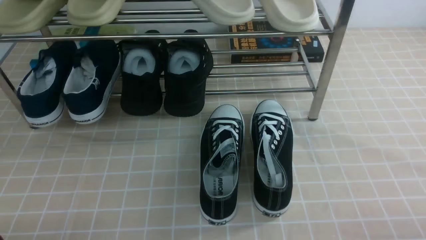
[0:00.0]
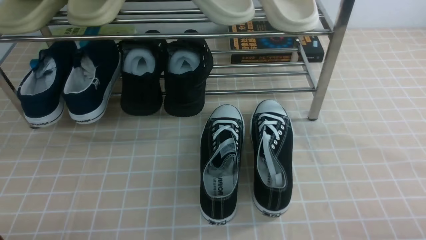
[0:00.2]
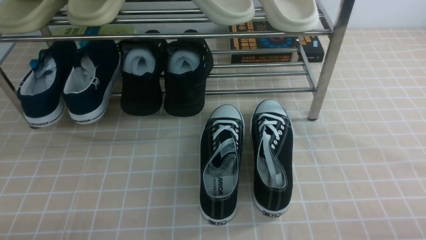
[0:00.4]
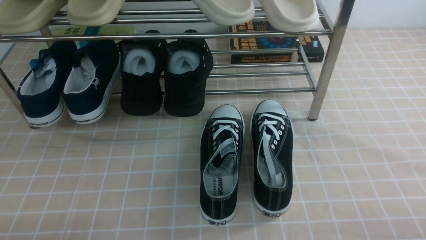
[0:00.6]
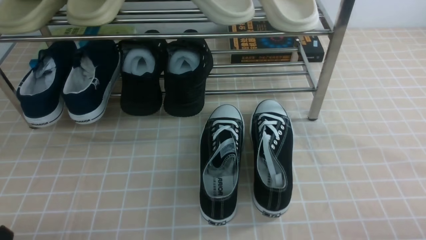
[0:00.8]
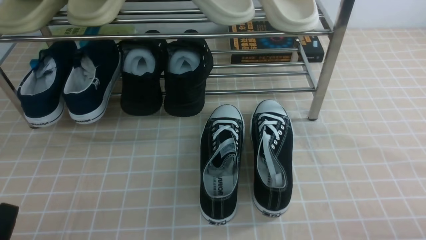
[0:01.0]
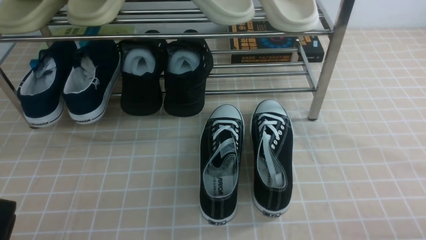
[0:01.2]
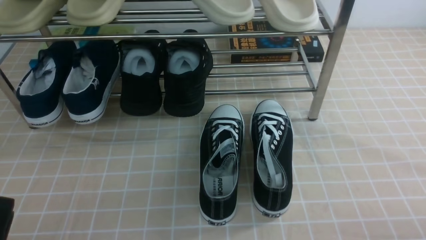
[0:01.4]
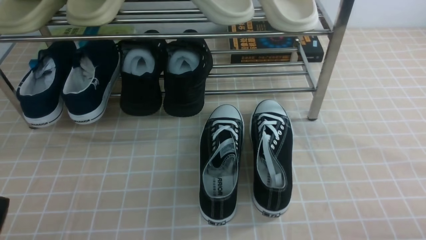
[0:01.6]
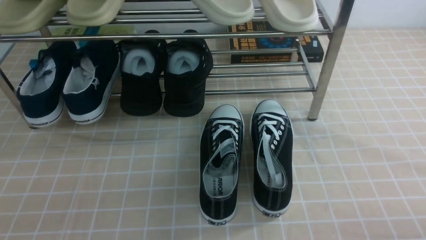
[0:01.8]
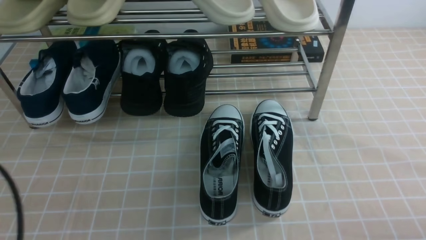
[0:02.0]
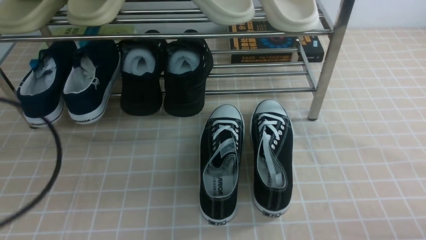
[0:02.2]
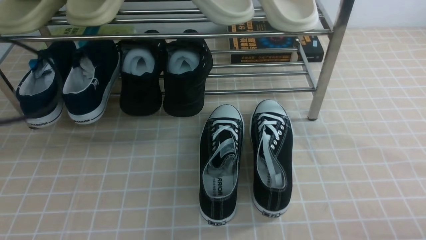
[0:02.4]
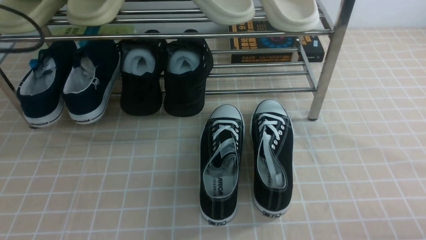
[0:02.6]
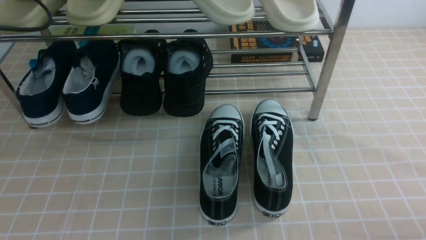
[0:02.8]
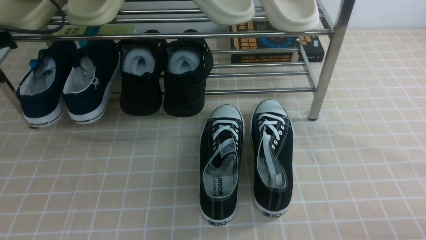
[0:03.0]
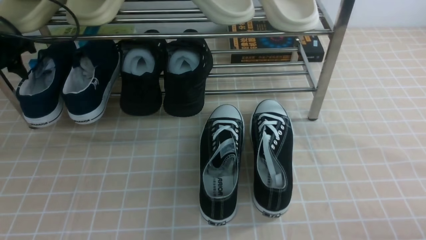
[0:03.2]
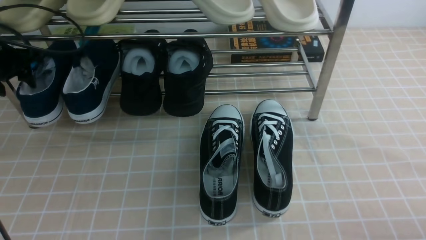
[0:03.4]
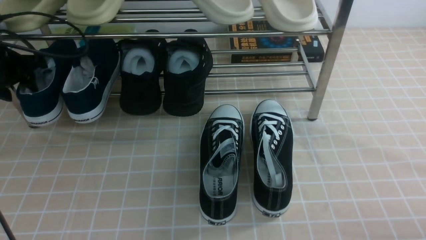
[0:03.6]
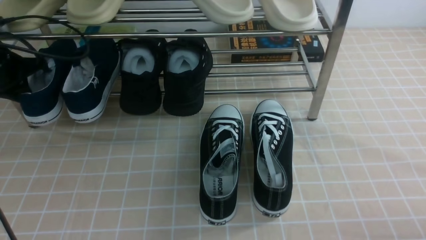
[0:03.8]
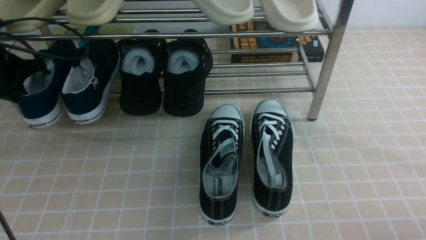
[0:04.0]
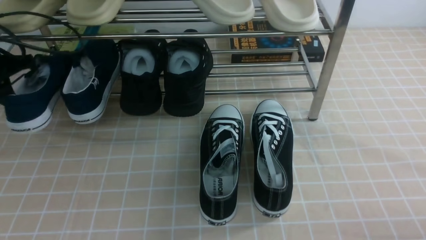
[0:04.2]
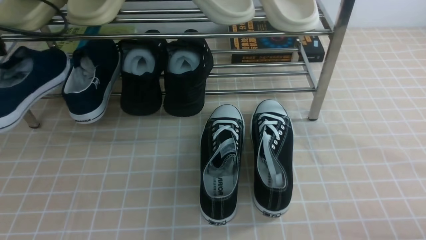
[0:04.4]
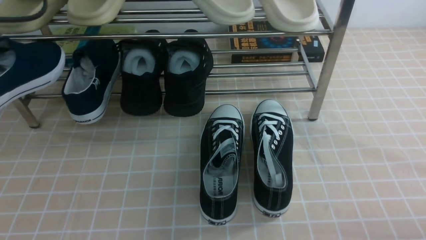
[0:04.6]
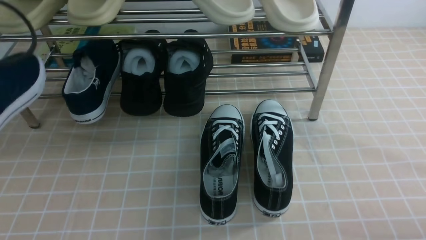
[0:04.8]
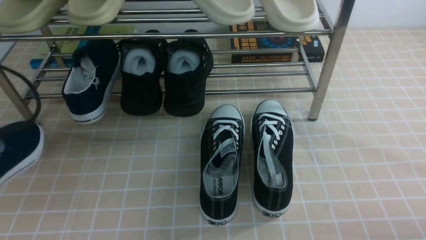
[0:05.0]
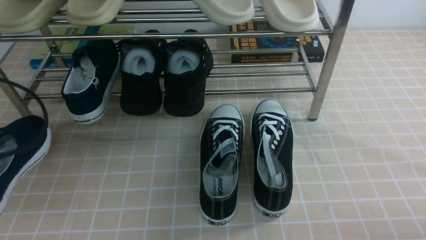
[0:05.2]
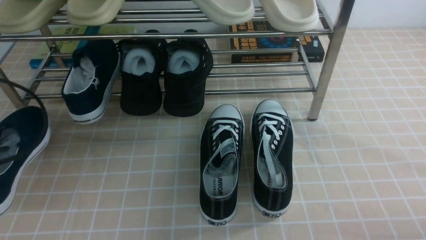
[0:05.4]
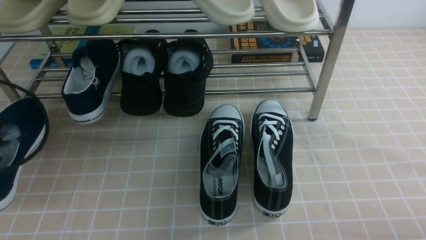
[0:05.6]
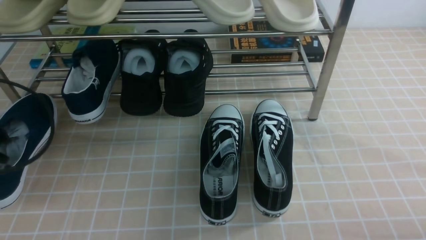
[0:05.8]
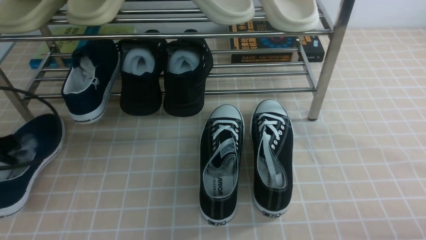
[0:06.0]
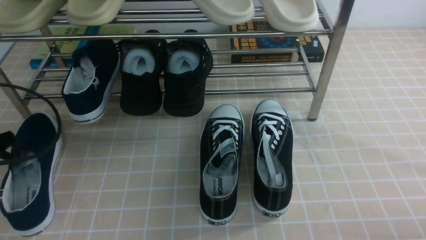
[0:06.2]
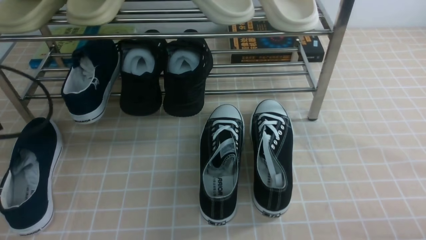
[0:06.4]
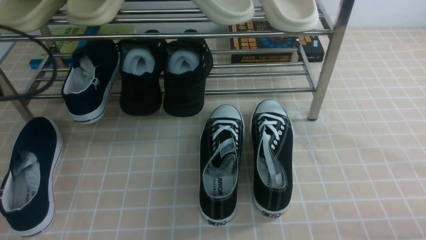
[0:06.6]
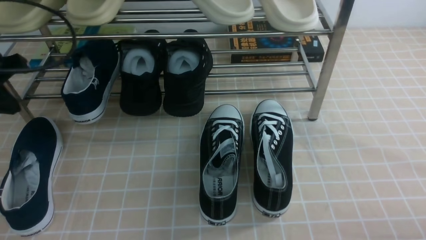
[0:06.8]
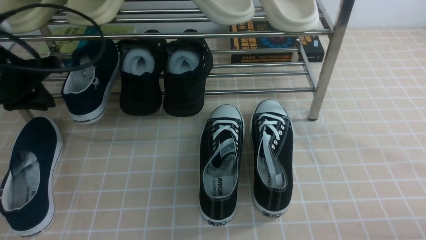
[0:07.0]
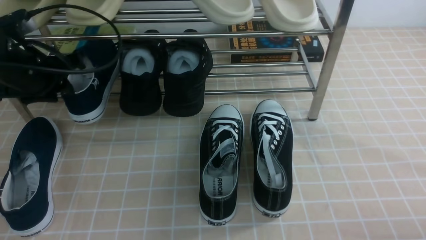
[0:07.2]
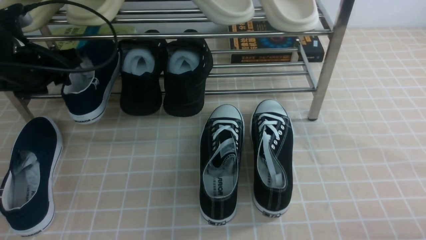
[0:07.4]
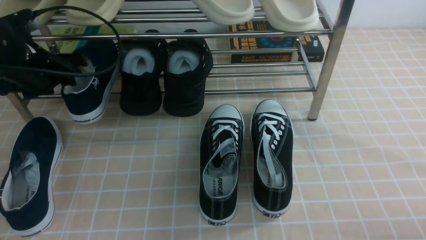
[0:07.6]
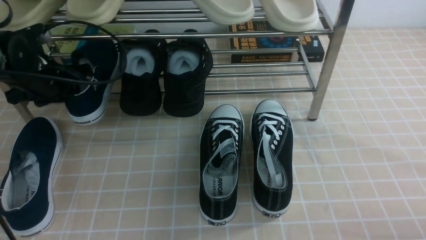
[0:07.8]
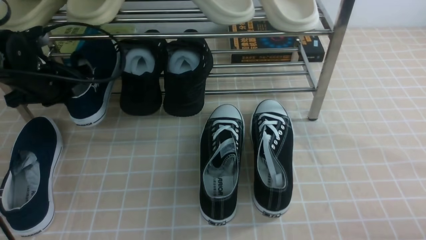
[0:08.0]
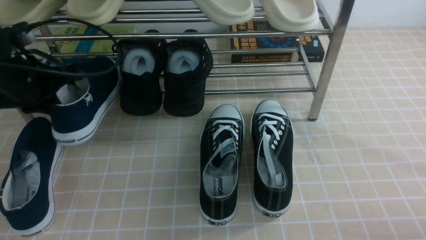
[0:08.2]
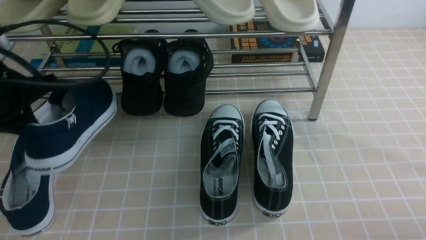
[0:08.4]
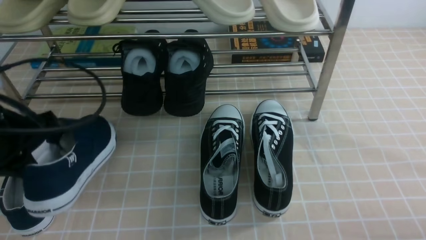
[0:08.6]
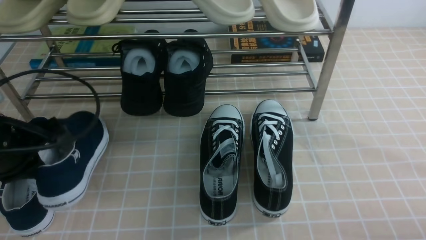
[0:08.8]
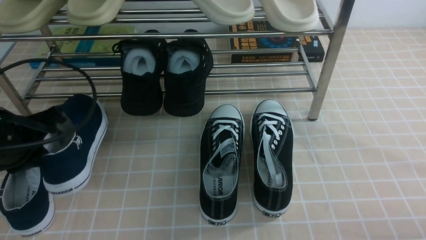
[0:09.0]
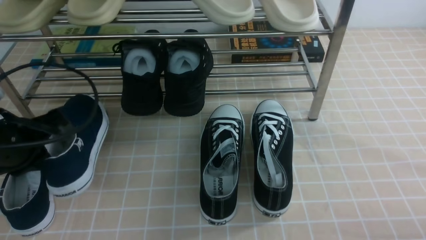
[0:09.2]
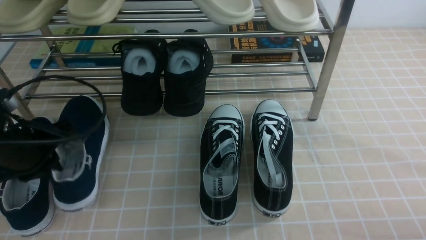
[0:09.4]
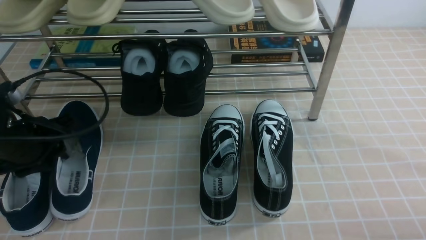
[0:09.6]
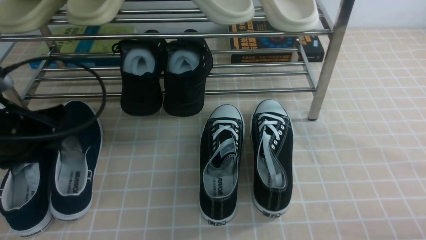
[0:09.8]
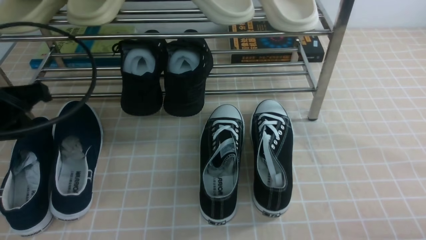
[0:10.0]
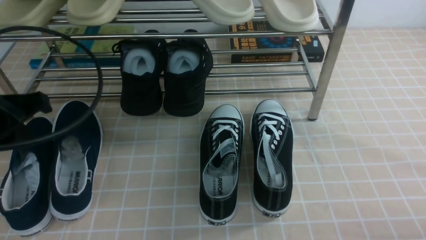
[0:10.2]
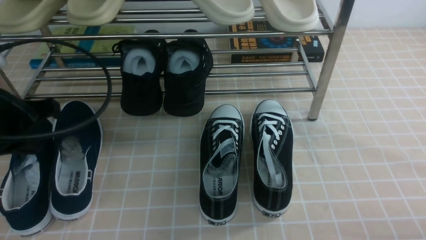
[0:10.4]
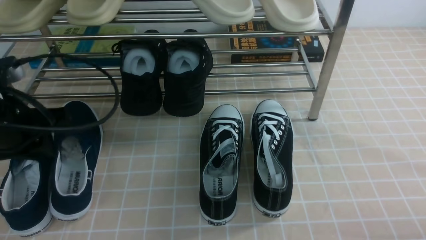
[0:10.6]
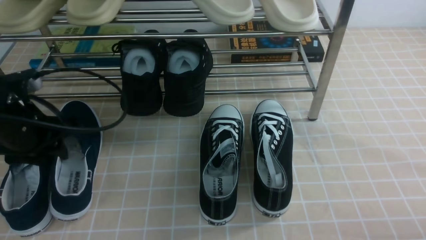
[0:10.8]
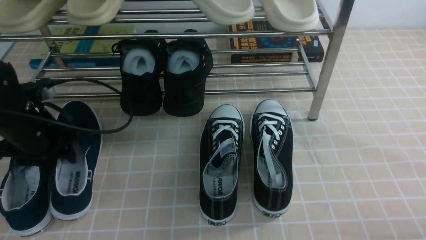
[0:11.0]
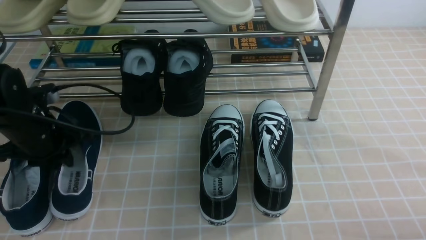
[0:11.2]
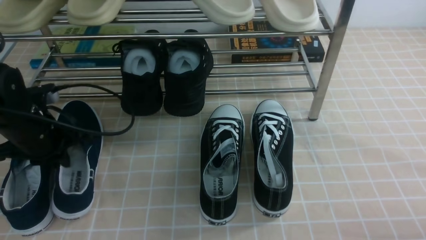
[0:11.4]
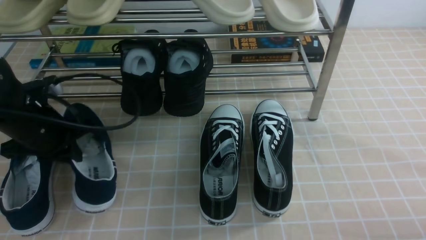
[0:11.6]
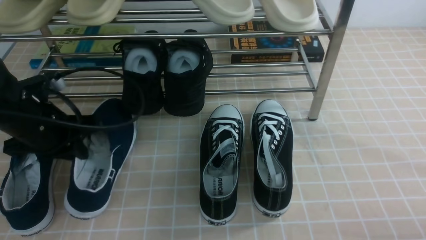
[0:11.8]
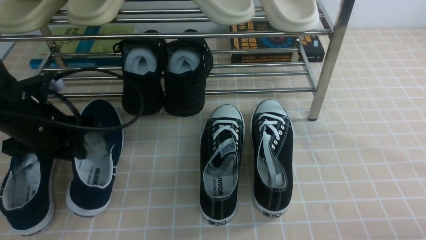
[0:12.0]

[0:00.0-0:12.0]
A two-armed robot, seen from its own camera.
Step, 0:00.0 to 0:03.8: use the left arm to clamp a shoe on the left side of the shoe rack.
Step, 0:04.0 to 0:06.2: Use your left arm to remove the clamped shoe from the shoe rack and put it down.
Step, 0:06.4 to 0:07.8: use the left arm to clamp a shoe on the left side of the shoe rack.
Step, 0:08.2 to 0:09.8: Use your left arm to remove the clamped shoe from the shoe rack and put it down.
0:01.6 to 0:03.0: The left gripper travels forward by roughly 30 cm, and opens up.
0:03.0 to 0:04.4: The left gripper moves roughly 5 cm, and closes up.
0:04.4 to 0:06.0: The left gripper is displaced downward and backward by some 15 cm.
0:06.0 to 0:07.6: The left gripper heads forward, covering approximately 15 cm, and opens.
0:07.6 to 0:09.0: The left gripper moves backward, about 15 cm, and closes its fingers.
0:09.0 to 0:10.4: The left gripper opens, then closes again.
0:10.4 to 0:12.0: The left gripper is displaced downward and forward by about 10 cm, and opens, then closes once more.

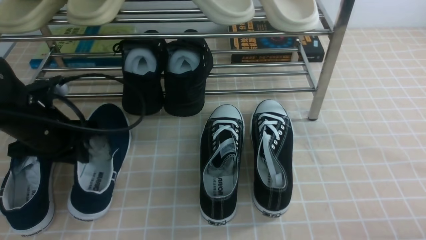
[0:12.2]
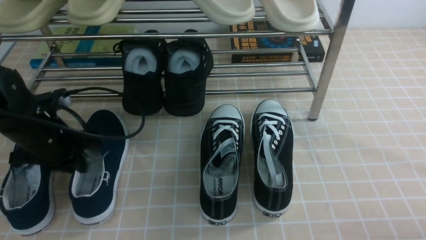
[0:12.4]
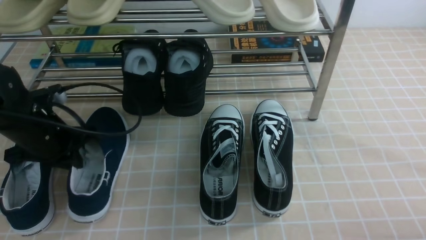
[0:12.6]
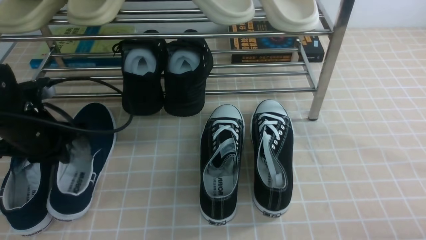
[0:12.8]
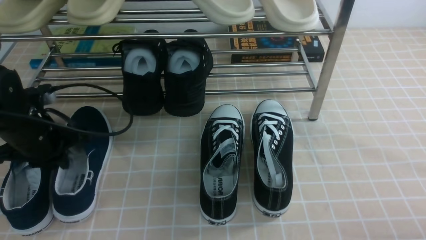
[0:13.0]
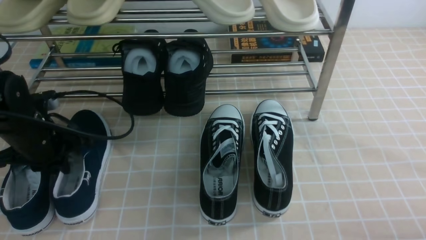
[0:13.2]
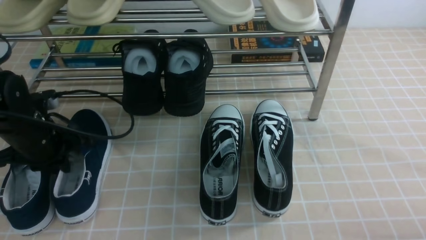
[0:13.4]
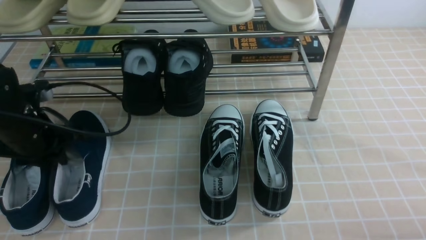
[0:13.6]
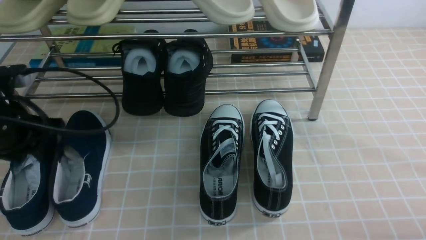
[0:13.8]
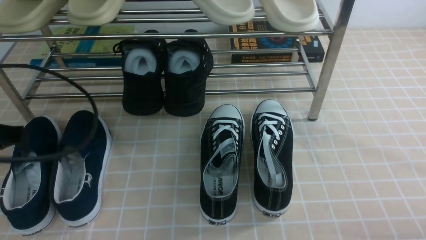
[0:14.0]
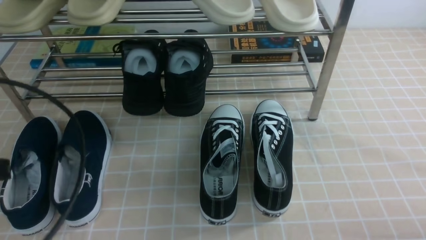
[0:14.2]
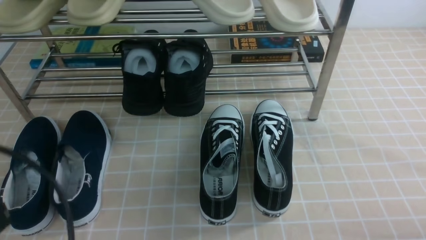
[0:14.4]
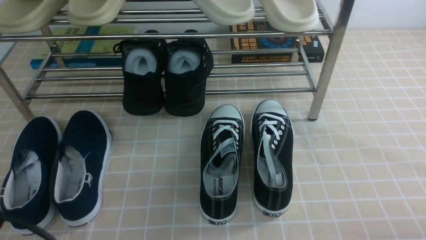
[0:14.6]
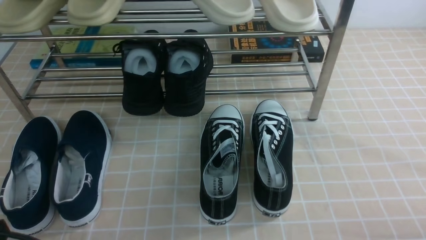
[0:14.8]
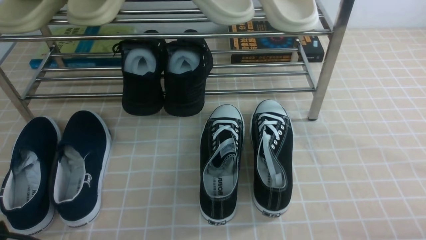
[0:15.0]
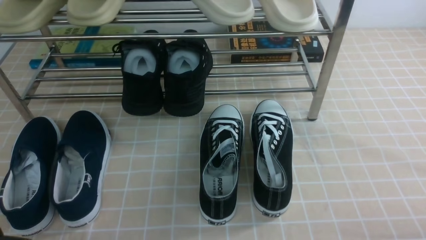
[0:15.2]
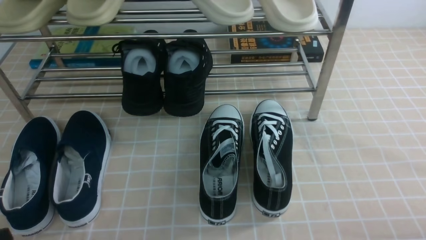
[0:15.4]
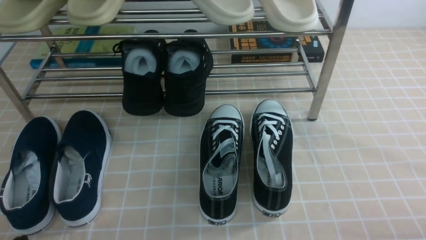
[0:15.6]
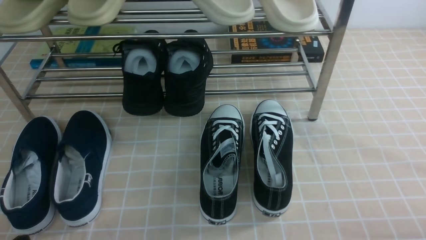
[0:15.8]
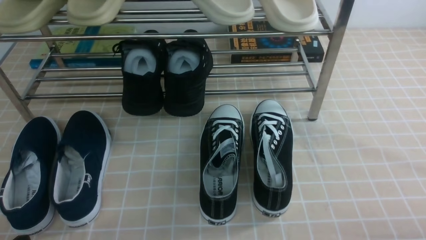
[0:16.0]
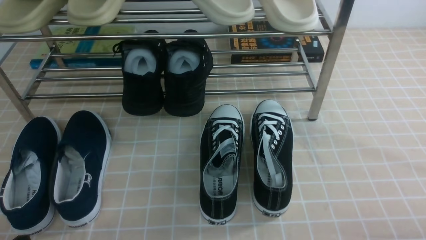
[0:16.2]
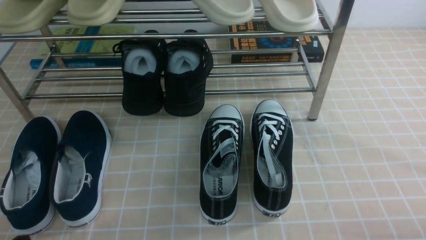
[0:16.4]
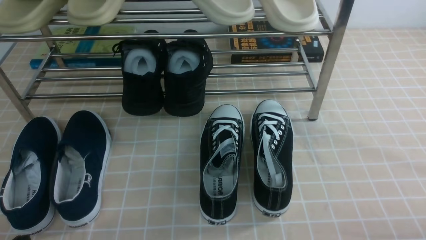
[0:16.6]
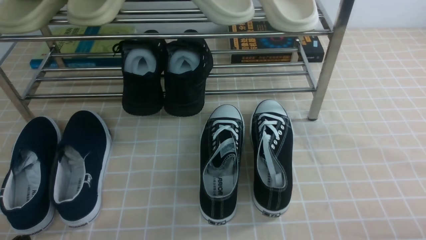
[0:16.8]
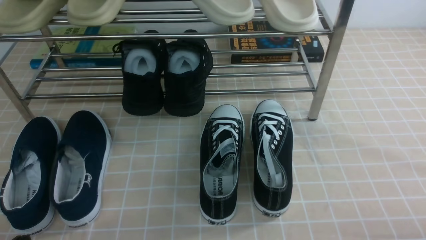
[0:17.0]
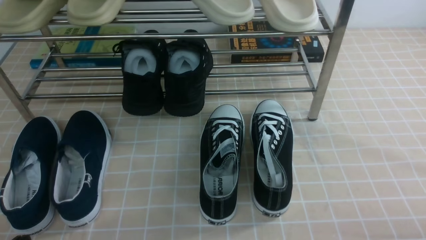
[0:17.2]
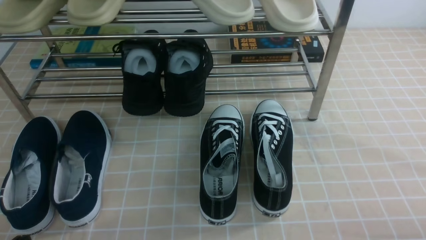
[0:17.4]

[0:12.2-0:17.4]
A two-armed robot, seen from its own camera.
0:12.2 to 0:14.0: The left gripper travels backward and upward by about 15 cm.
0:14.0 to 0:15.6: The left gripper travels backward and downward by some 20 cm.
0:15.6 to 0:17.4: Both grippers stay about where they are.
